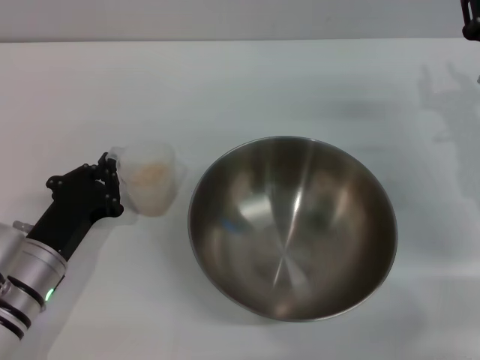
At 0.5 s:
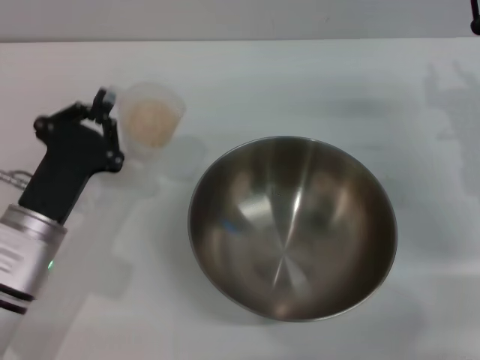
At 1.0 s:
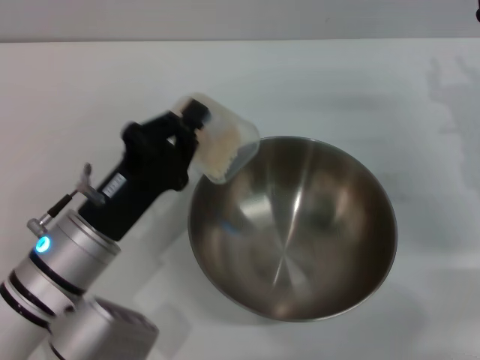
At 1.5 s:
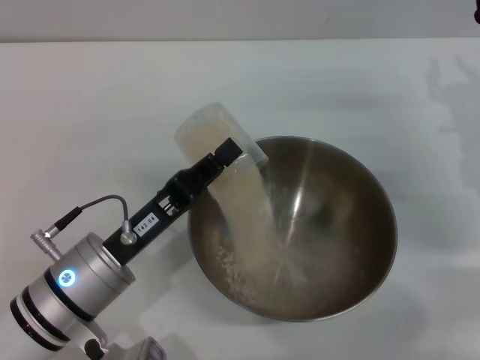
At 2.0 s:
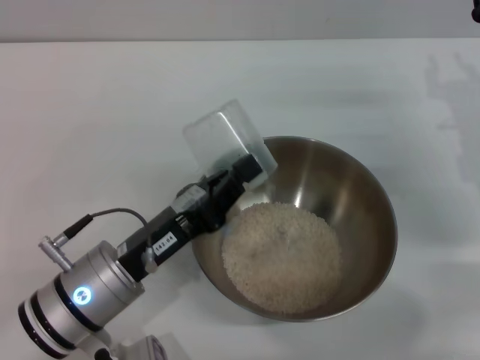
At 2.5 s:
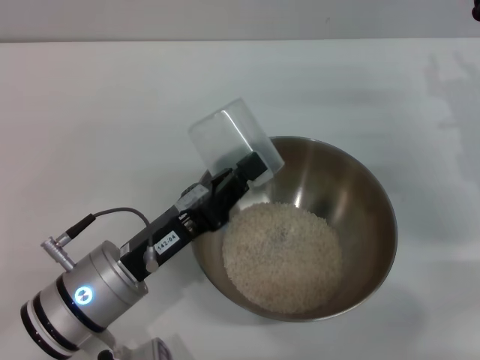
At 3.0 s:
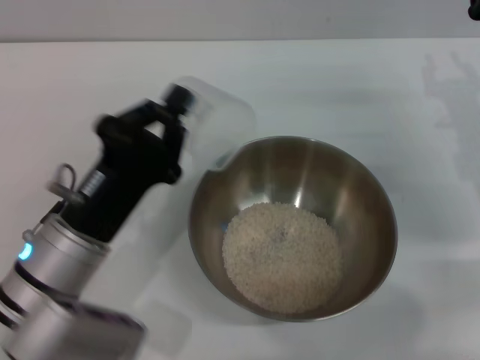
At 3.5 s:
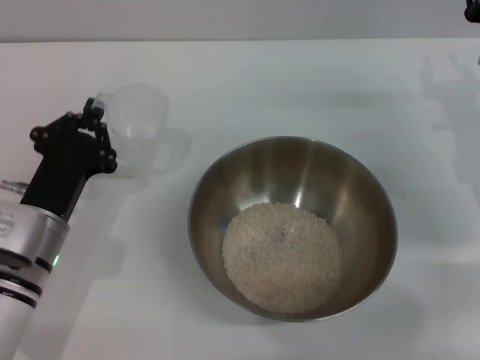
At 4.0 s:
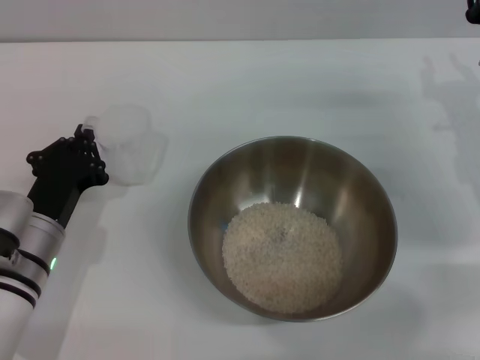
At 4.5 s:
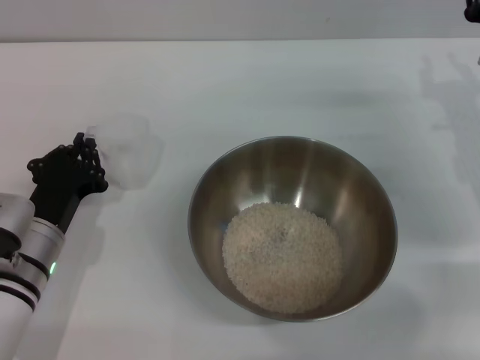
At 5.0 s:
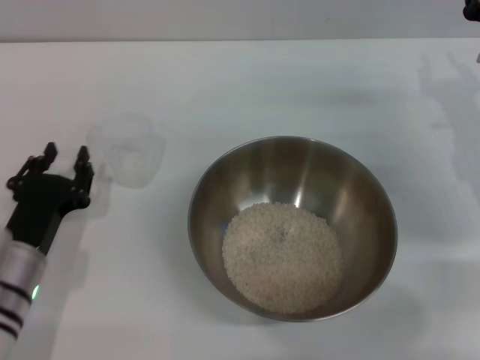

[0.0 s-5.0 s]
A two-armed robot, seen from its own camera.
Task of the whole recording: Place the bowl in the middle of the table with one hand and pour the rice from the grain cup into it with the other hand.
Step, 0.5 to 2.5 s: Pour the rice from the cup into the bowl with the left gripper.
Step, 3.0 to 4.5 s: Place the cup on the table with the left gripper.
0.0 to 2.5 s: The left gripper is displaced to the right by some 5 cm.
2.5 to 5.0 s: The left gripper heads to the left, covering about 10 cm.

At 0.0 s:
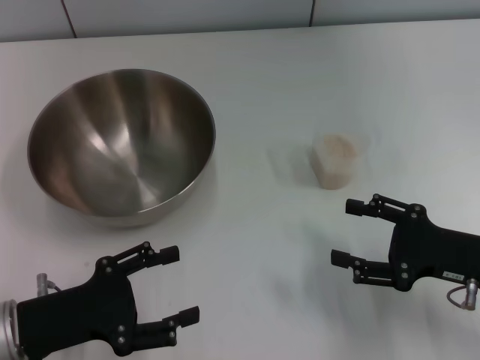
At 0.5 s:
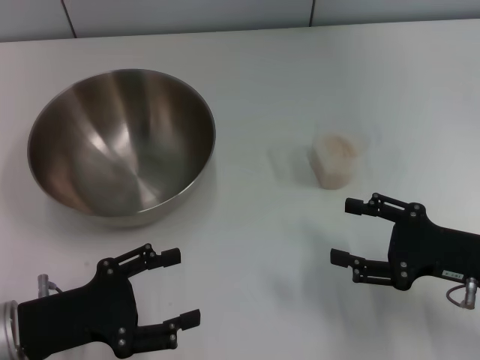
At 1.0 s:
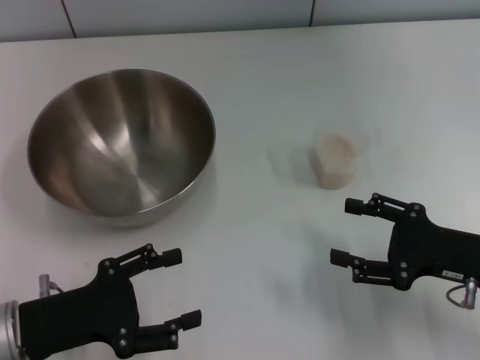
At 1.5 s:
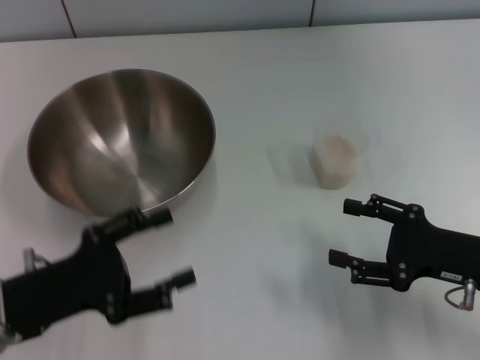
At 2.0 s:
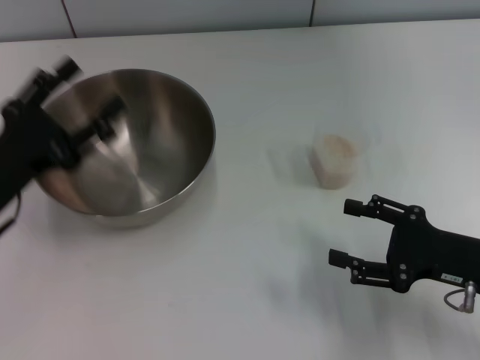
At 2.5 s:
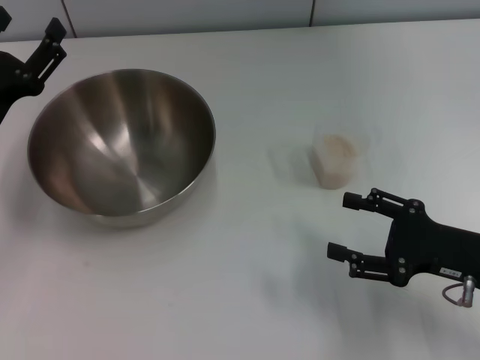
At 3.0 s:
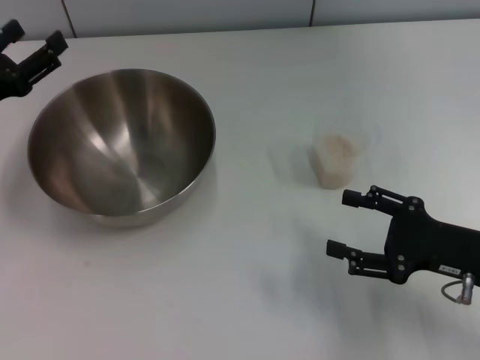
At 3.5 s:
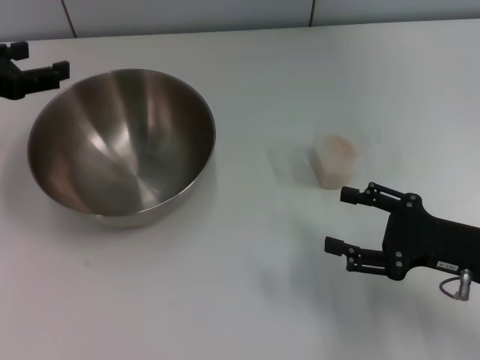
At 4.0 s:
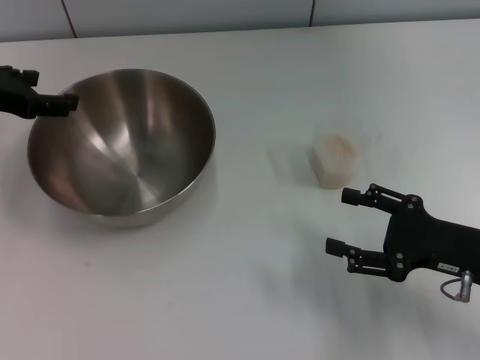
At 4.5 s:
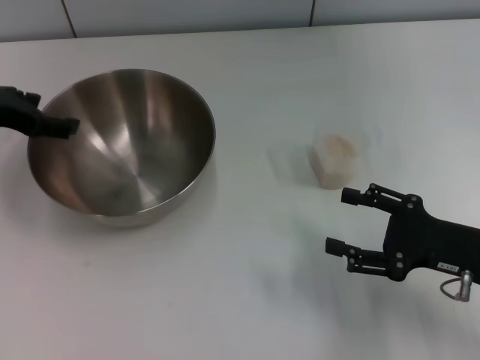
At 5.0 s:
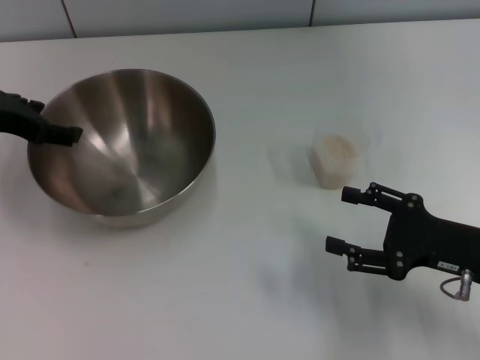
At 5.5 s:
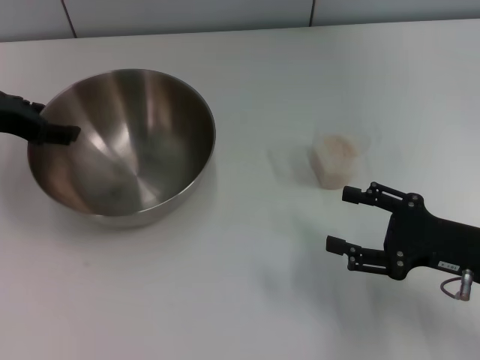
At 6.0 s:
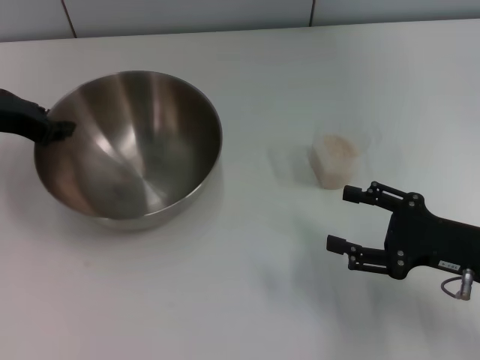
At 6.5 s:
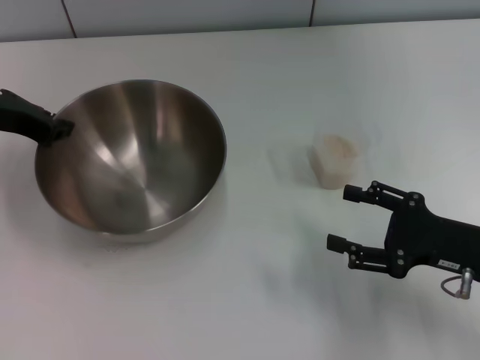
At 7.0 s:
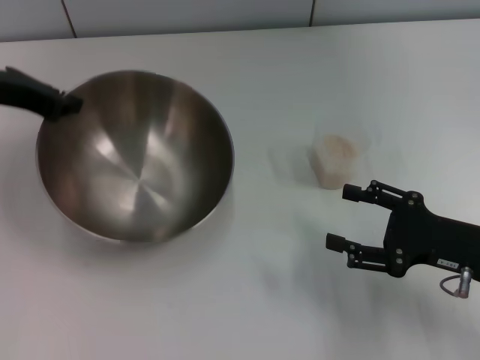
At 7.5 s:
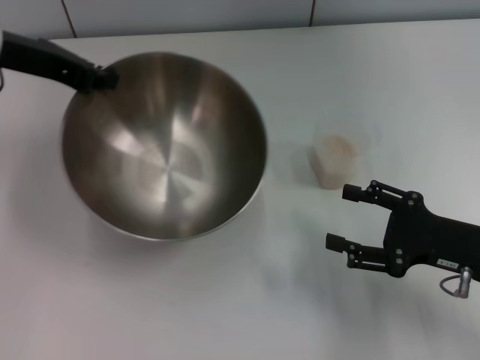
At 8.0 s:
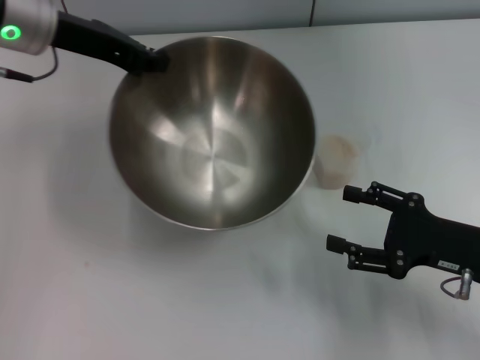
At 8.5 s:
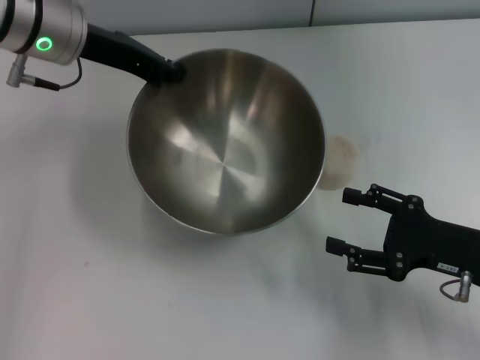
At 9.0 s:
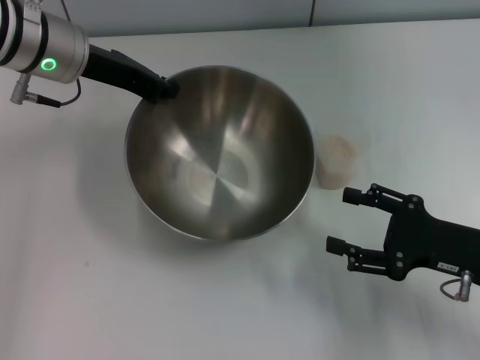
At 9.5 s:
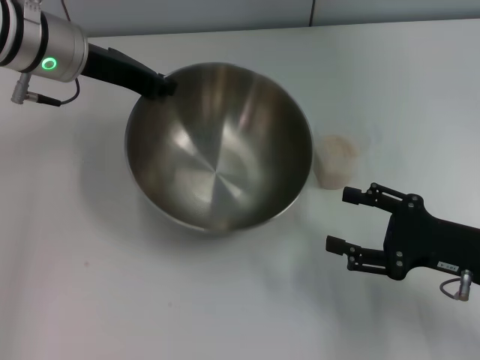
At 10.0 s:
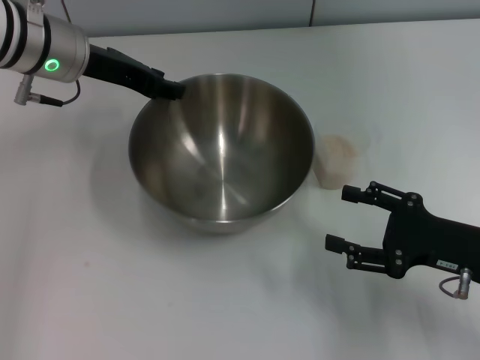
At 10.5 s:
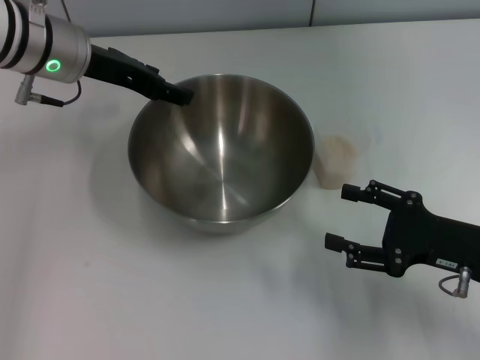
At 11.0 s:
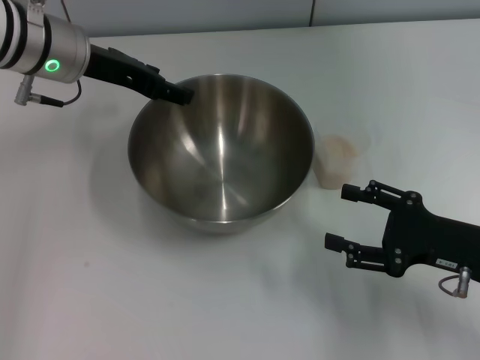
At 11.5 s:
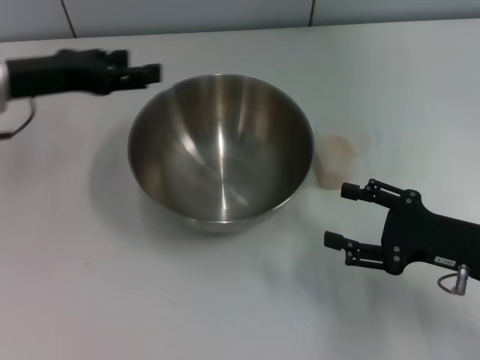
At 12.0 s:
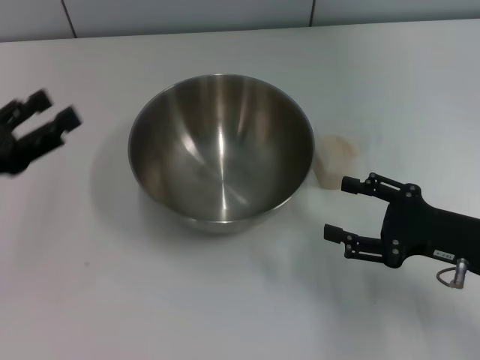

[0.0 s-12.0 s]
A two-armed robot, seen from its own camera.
Task of the whole recording: Place the bowl in the middle of the table with one hand and pour the rice from the grain cup into it with the other hand.
Step, 0.0 to 7.0 s: Pick up the bowl with the left gripper.
Step, 7.5 to 11.0 s: Place the bowl in the center of view with the left gripper.
0.0 to 2.0 s: The left gripper moves forward, about 5 cm.
2.0 to 4.0 s: The left gripper moves forward and upward, roughly 15 cm.
4.0 to 6.0 s: The left gripper closes.
6.0 to 8.0 s: The left gripper shifts roughly 10 cm to the right and upward, and closes.
8.0 to 10.0 s: The grippers stay close to where they were, moving slightly.
10.0 to 12.0 s: The left gripper heads backward, to the left and downward, covering about 25 cm, and opens up.

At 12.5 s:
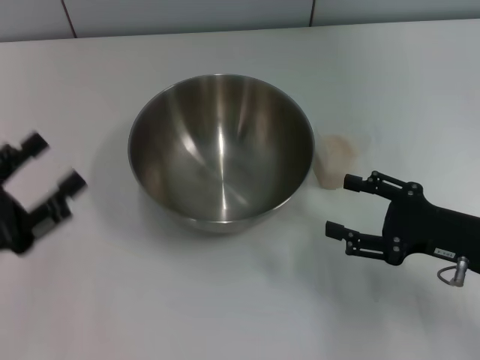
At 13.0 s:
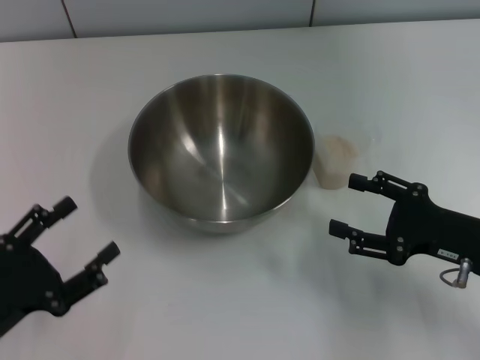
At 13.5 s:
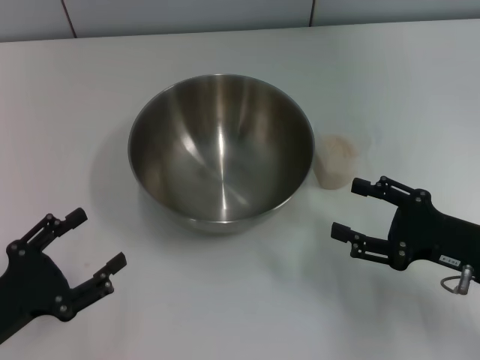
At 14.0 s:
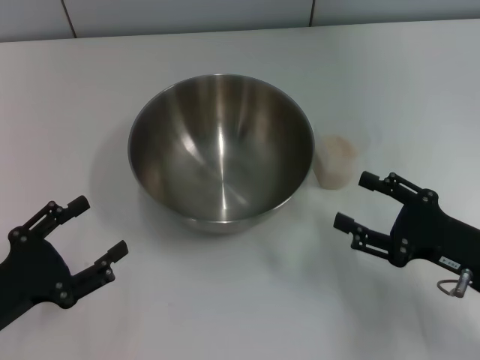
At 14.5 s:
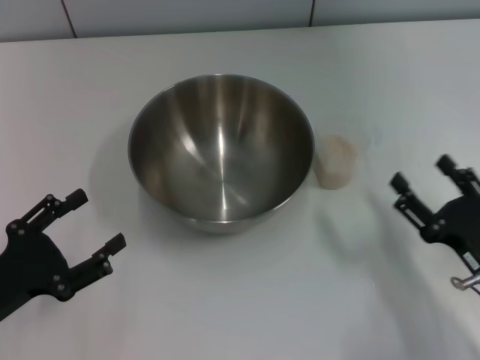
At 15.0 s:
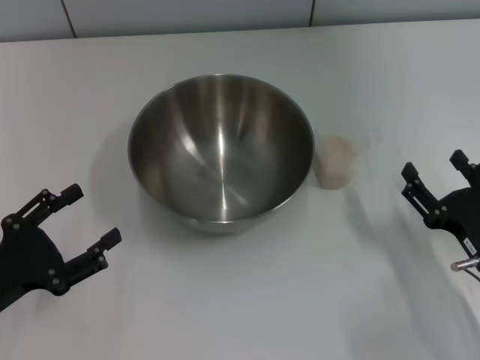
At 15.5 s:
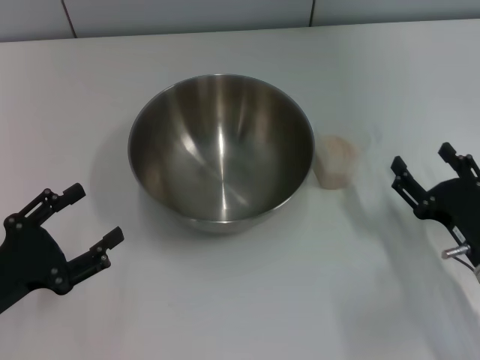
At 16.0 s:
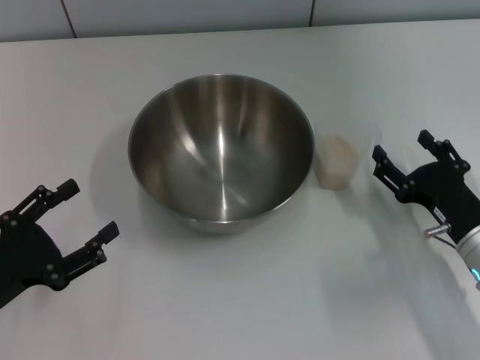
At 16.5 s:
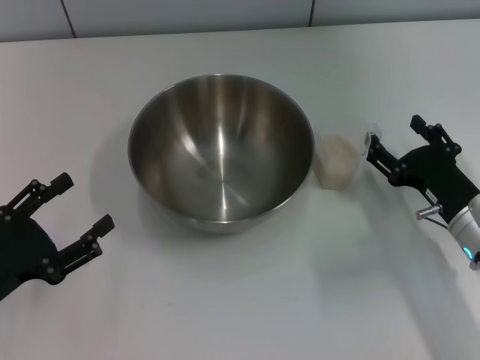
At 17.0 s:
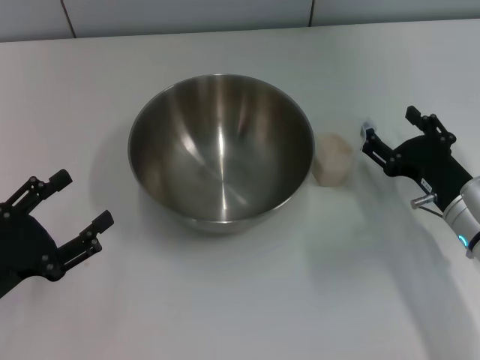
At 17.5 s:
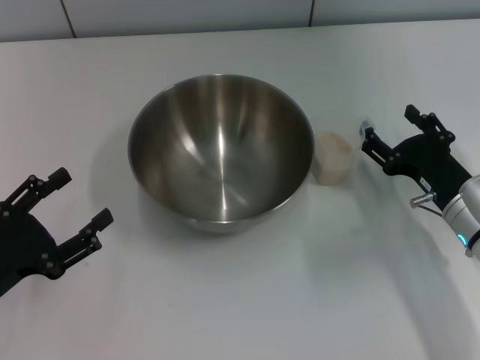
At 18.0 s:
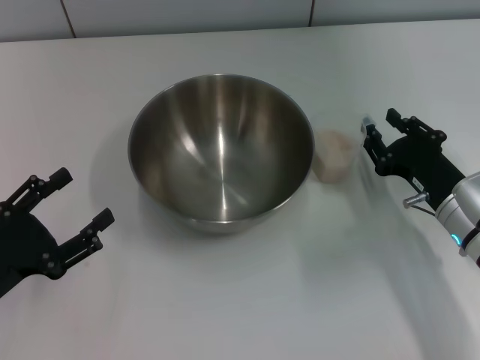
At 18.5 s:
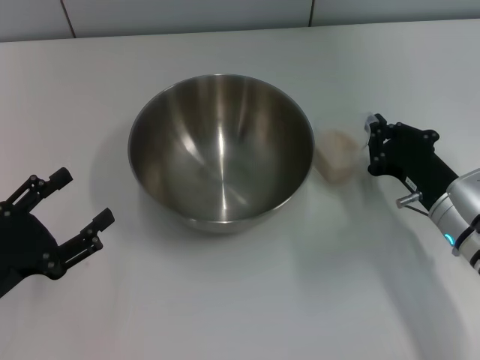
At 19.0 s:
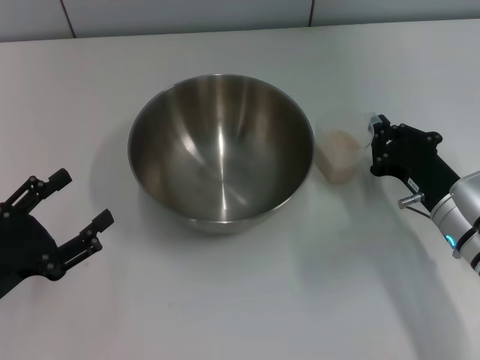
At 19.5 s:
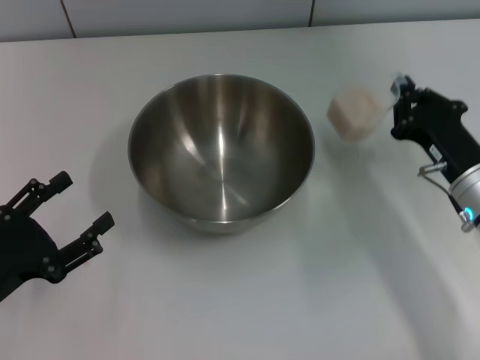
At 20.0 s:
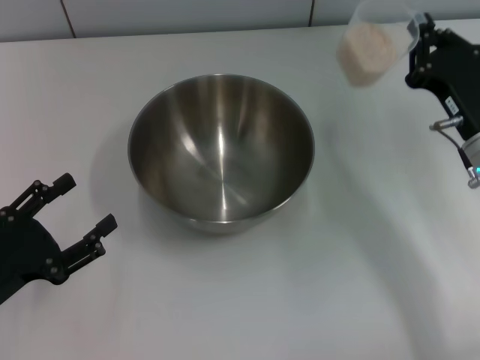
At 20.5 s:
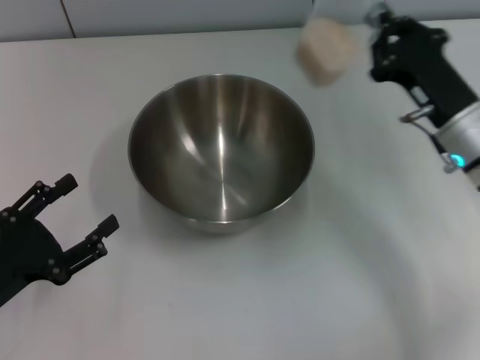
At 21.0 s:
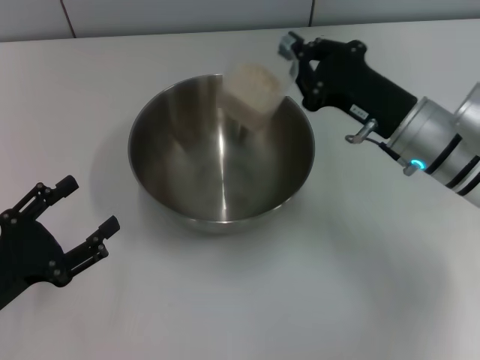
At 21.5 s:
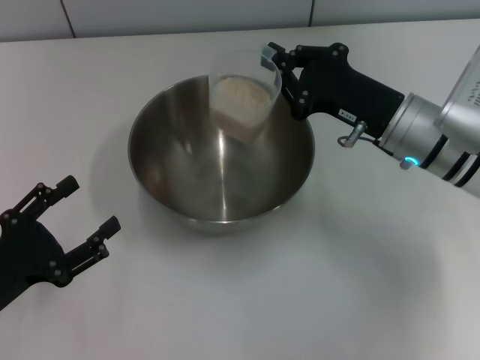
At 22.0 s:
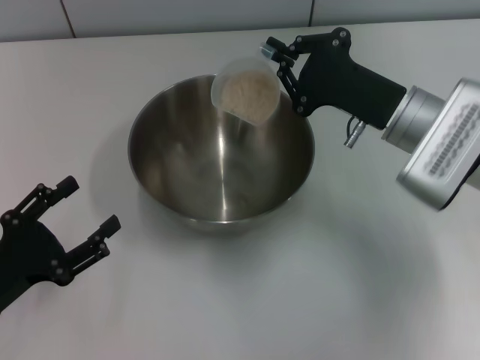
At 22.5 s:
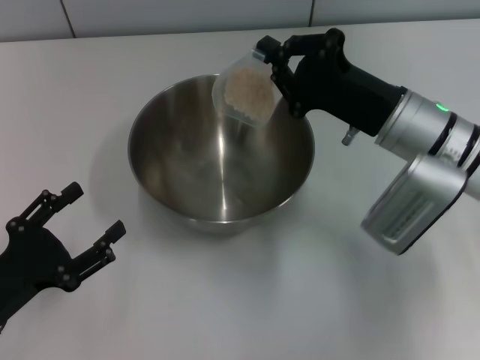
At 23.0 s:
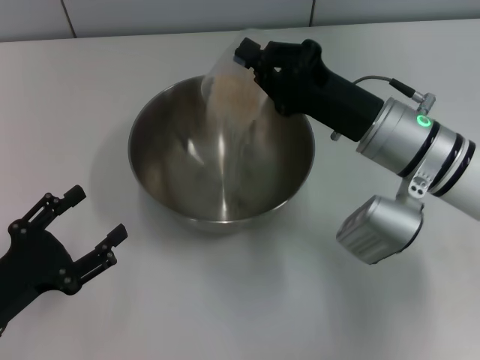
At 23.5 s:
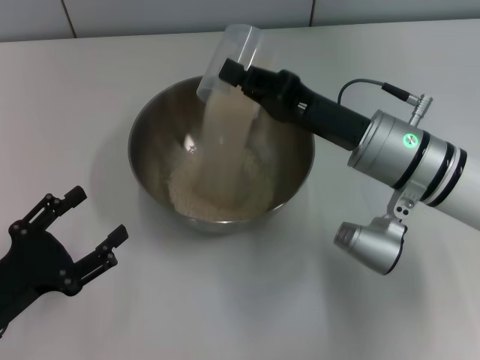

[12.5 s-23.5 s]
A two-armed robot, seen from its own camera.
Task of the whole recording: Place the bowl in the middle of the table with one hand and pour the rice from the grain cup into it with the other hand.
Step, 12.5 to 19.5 s: Pick up the cup with rice in it with the right gripper.
12.5 to 14.5 s: The right gripper travels backward by some 5 cm.
14.5 to 16.0 s: The right gripper heads forward, covering approximately 5 cm.
16.0 to 18.0 s: There are only small adjustments of the grippers.
18.0 to 20.0 s: The right gripper goes approximately 5 cm upward, and closes its fingers.
20.0 to 21.5 s: The right gripper shifts approximately 5 cm to the left.
